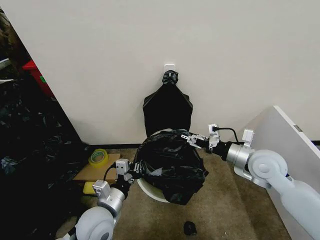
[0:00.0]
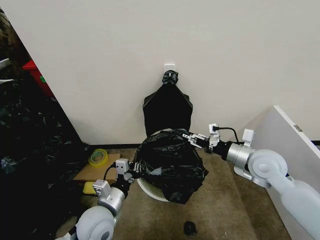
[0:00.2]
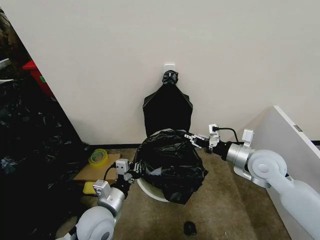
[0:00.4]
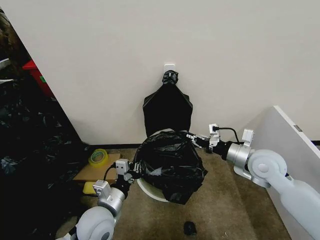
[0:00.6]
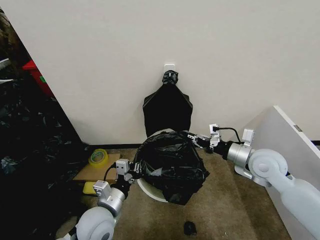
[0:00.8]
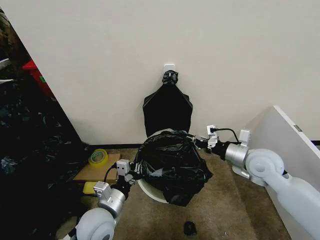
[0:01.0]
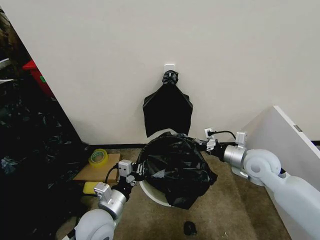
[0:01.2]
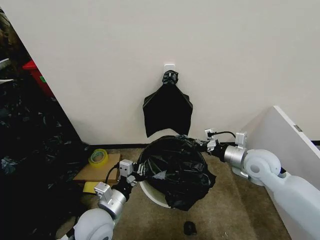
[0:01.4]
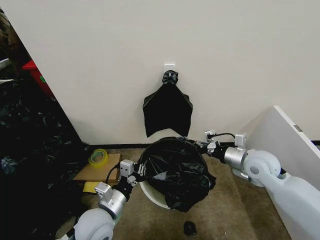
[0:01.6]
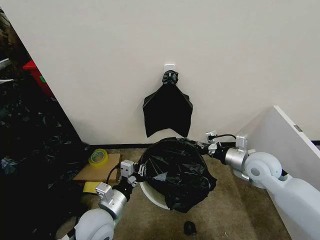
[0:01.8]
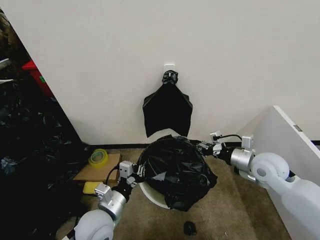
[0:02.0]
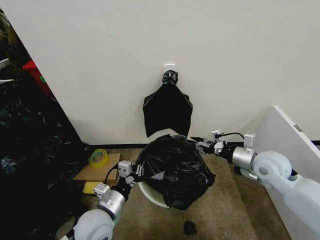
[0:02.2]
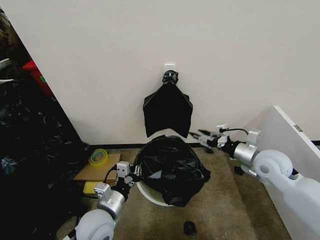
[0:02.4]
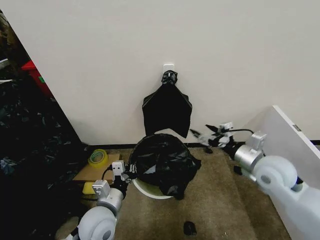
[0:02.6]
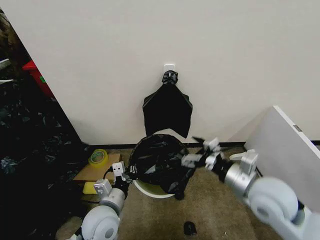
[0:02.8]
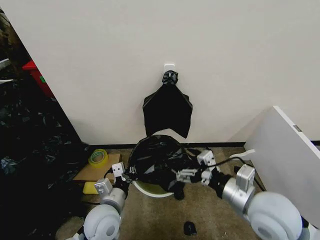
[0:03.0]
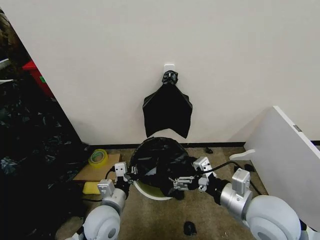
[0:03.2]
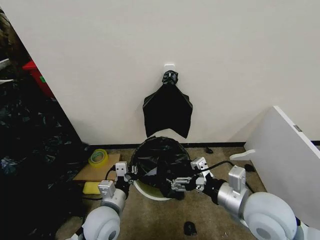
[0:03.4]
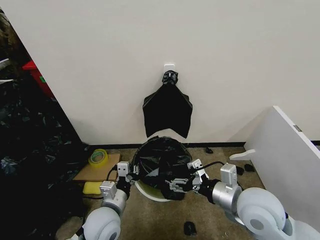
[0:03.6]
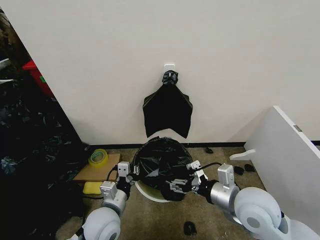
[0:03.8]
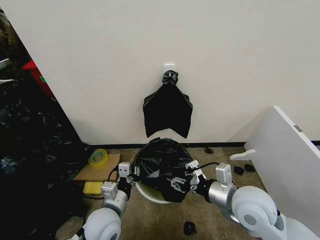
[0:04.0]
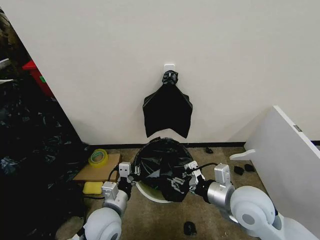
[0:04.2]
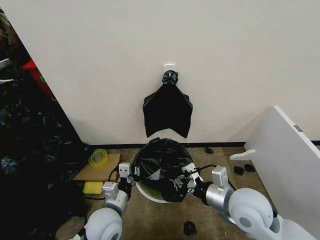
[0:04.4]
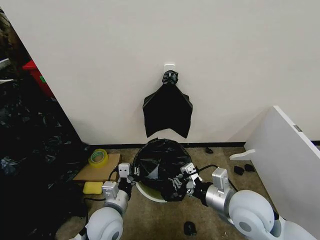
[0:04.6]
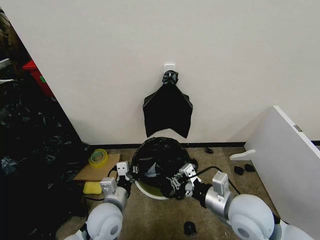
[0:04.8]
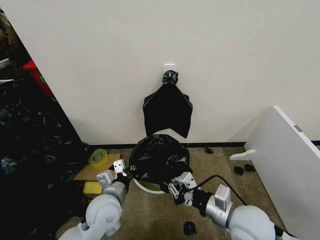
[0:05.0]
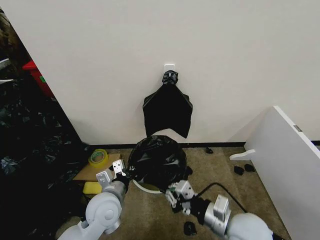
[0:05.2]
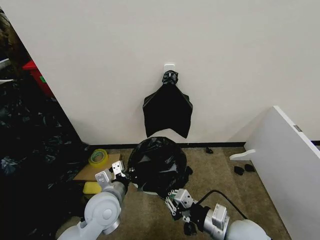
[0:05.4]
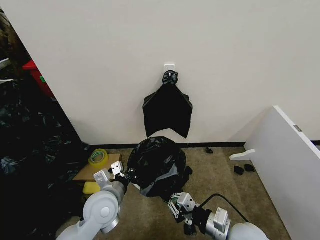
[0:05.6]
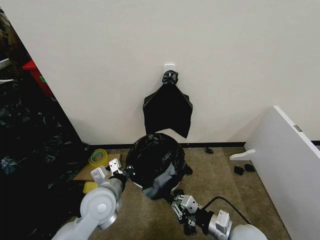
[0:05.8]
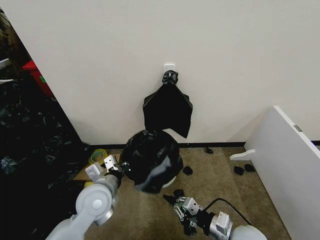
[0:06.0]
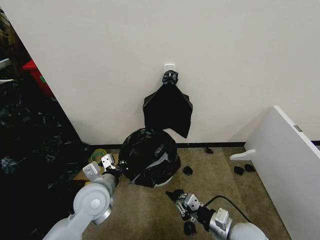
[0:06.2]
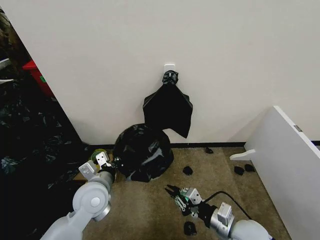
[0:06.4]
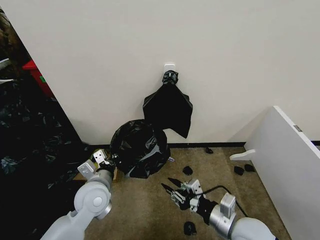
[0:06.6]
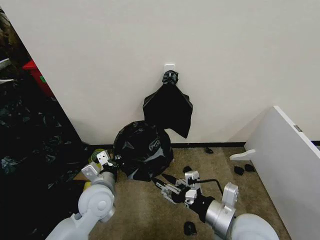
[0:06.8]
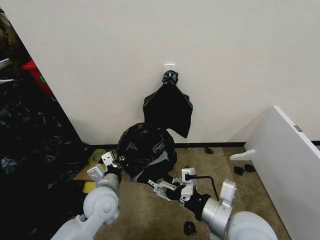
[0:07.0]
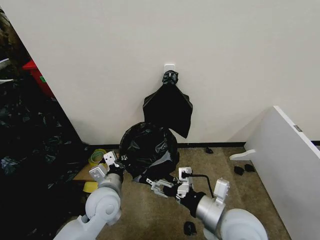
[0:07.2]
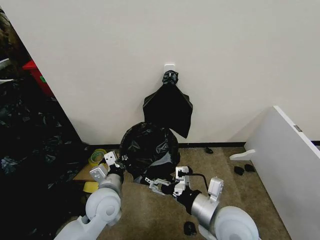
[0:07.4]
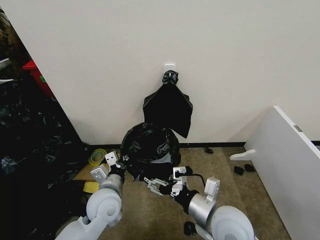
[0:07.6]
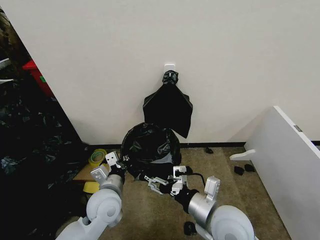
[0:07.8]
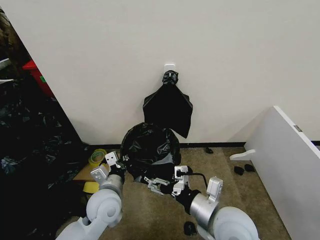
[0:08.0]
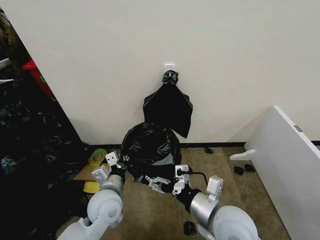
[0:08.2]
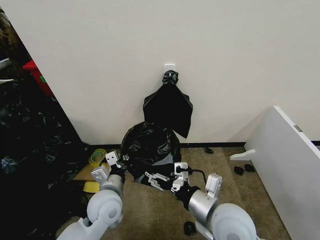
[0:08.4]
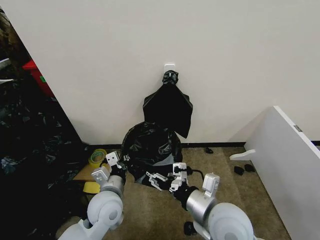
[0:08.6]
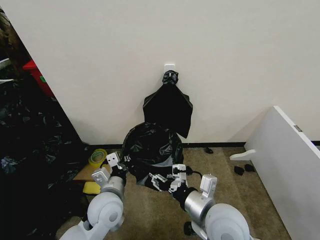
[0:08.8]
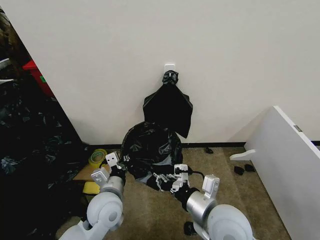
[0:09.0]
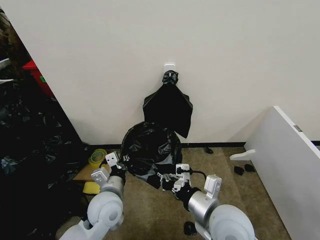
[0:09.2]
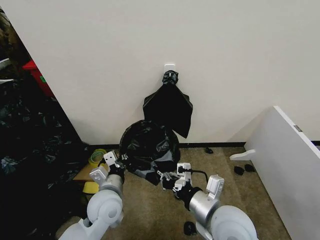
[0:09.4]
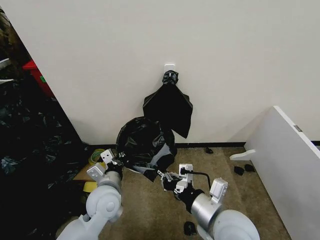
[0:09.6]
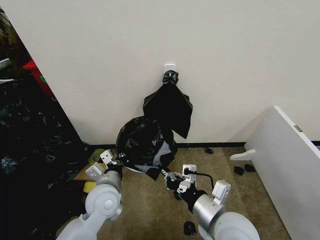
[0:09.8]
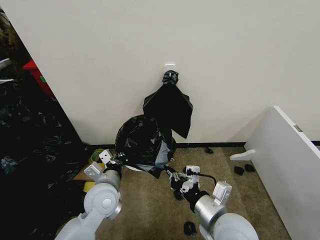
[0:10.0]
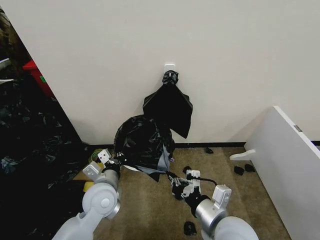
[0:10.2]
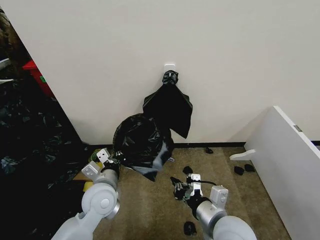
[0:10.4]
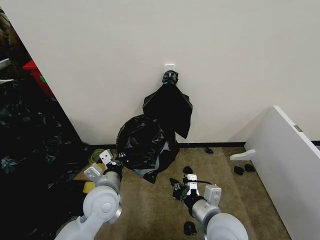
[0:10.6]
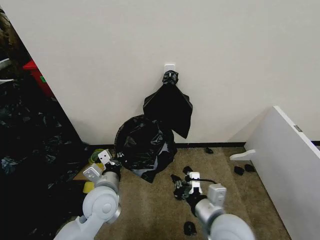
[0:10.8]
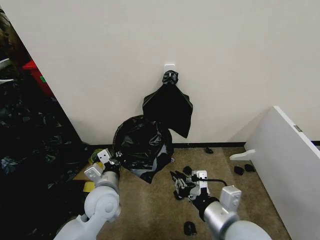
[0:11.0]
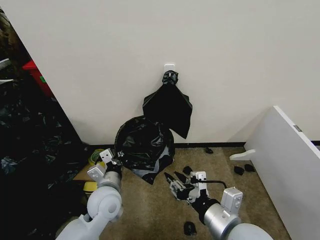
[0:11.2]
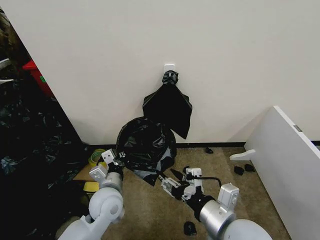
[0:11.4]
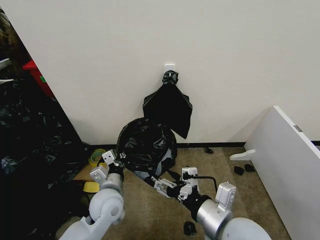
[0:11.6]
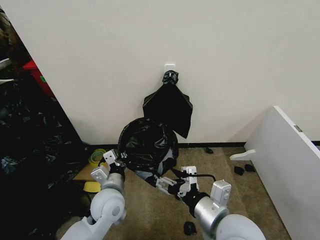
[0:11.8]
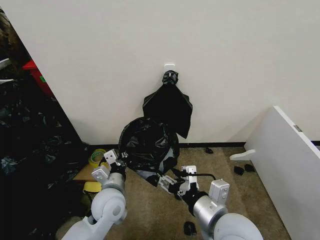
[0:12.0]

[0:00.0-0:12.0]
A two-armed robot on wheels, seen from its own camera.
Task of the whole recording: Place the garbage bag over the trash bin.
0:00.0 to 0:01.6: The right gripper closes its fingers.
0:01.6 to 0:03.0: The right gripper heads backward and to the left, covering some 15 cm, and opens.
0:03.0 to 0:04.4: The right gripper changes place by approximately 5 cm, and closes its fingers.
0:04.4 to 0:06.0: The right gripper heads downward and backward, covering about 15 cm. The left gripper heads upward, covering about 5 cm.
0:06.0 to 0:07.6: The right gripper travels upward and to the left by roughly 15 cm, and opens up.
0:07.6 to 0:09.0: The right gripper closes its fingers.
0:09.0 to 0:10.4: There are only small adjustments of the grippers.
0:10.4 to 0:12.0: The right gripper ends up roughly 5 cm from where it was, and opens.

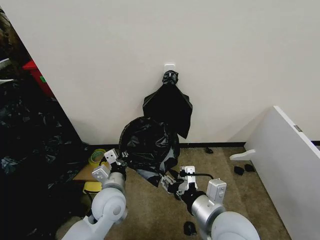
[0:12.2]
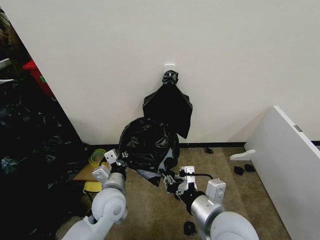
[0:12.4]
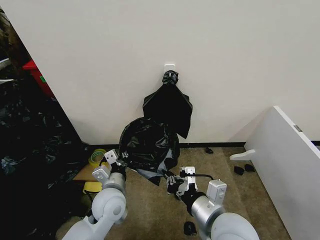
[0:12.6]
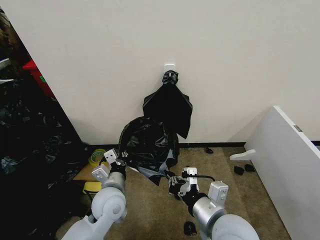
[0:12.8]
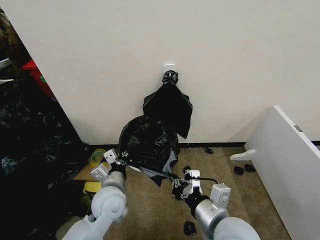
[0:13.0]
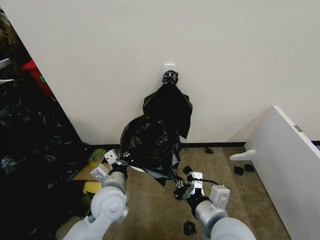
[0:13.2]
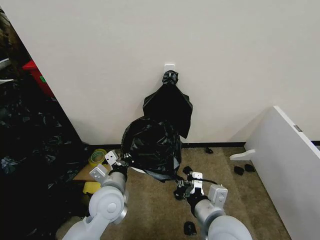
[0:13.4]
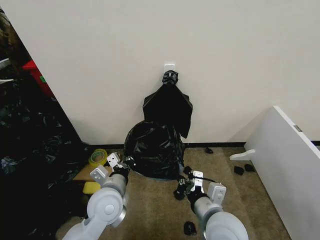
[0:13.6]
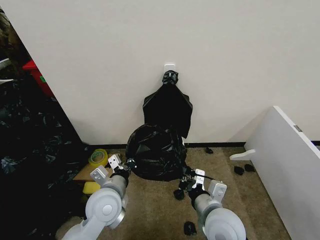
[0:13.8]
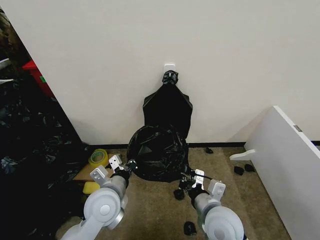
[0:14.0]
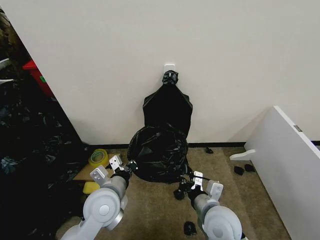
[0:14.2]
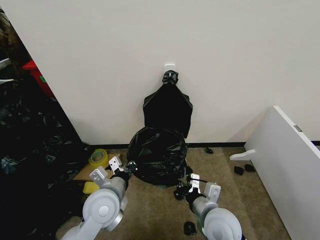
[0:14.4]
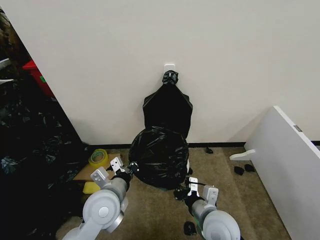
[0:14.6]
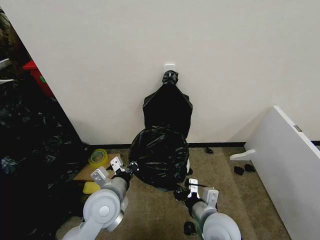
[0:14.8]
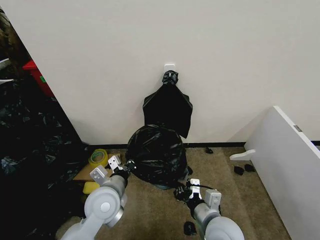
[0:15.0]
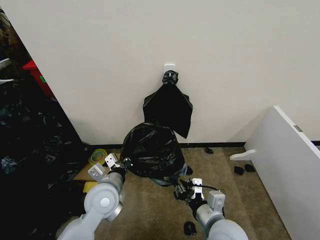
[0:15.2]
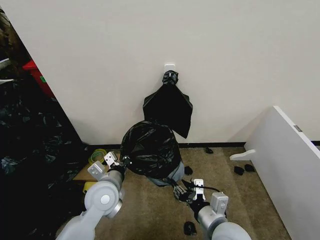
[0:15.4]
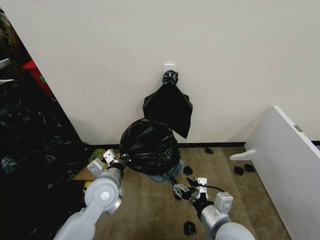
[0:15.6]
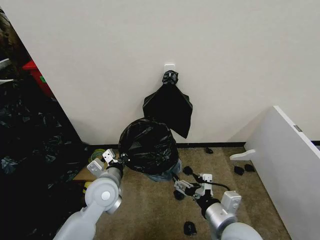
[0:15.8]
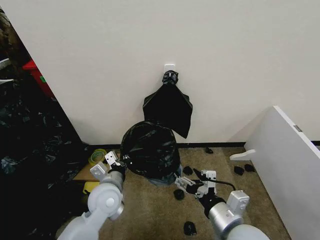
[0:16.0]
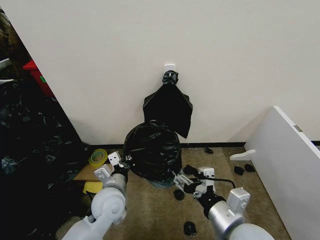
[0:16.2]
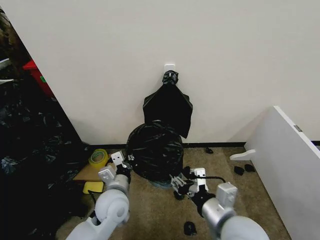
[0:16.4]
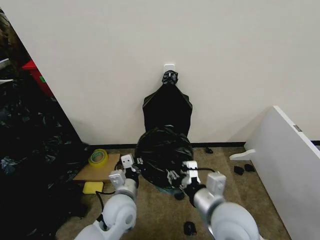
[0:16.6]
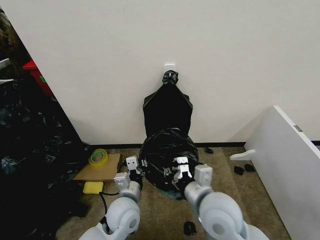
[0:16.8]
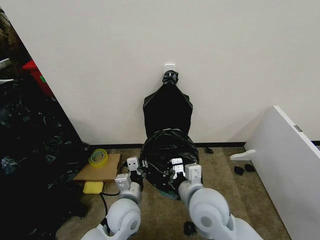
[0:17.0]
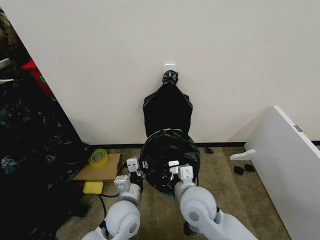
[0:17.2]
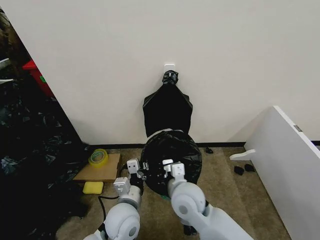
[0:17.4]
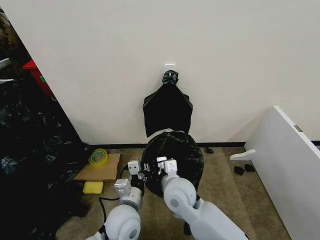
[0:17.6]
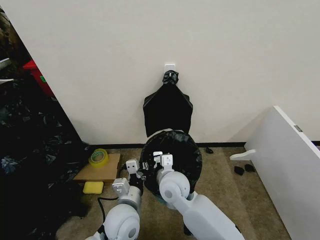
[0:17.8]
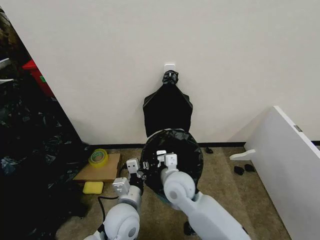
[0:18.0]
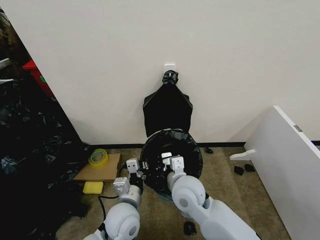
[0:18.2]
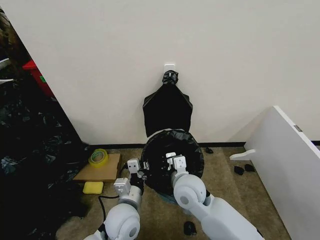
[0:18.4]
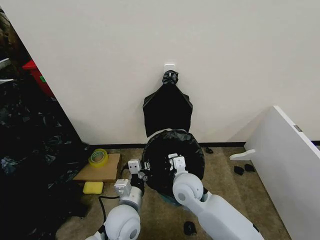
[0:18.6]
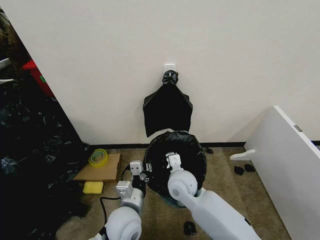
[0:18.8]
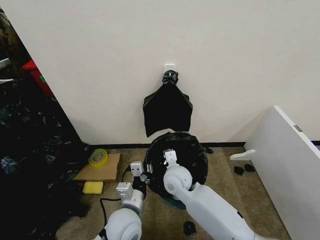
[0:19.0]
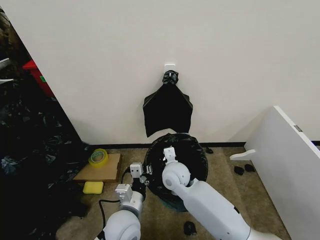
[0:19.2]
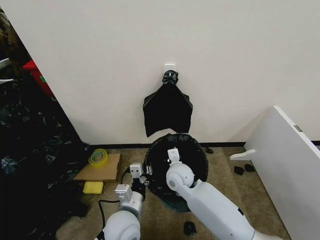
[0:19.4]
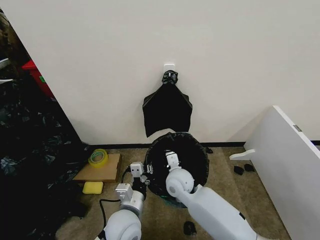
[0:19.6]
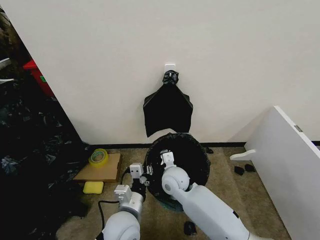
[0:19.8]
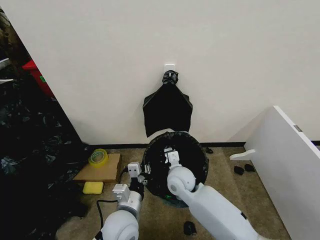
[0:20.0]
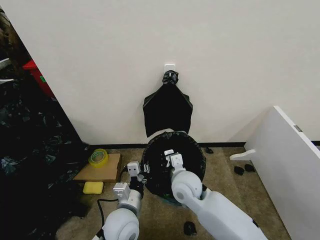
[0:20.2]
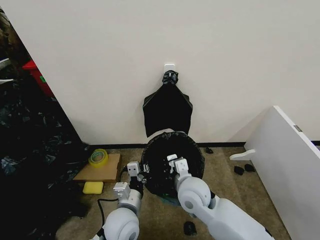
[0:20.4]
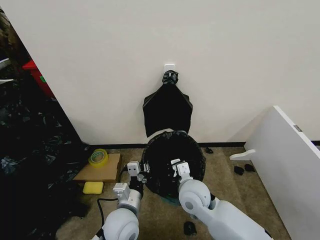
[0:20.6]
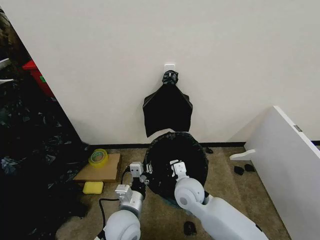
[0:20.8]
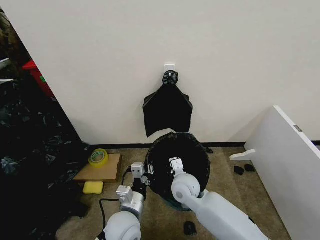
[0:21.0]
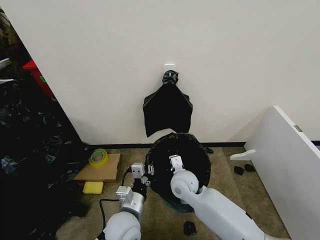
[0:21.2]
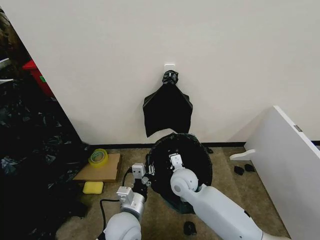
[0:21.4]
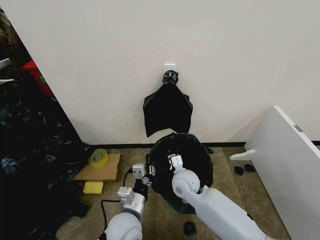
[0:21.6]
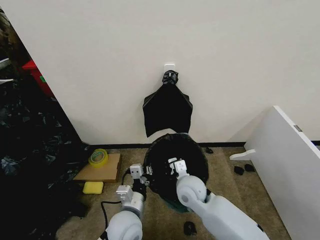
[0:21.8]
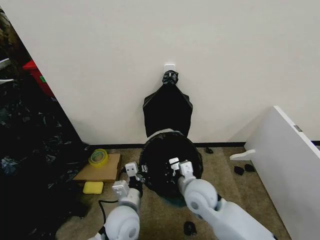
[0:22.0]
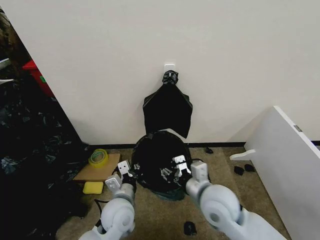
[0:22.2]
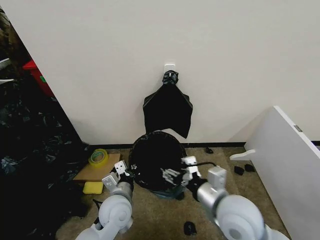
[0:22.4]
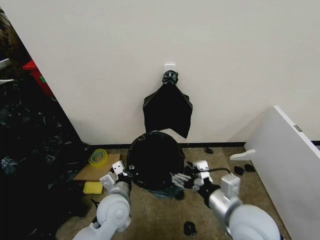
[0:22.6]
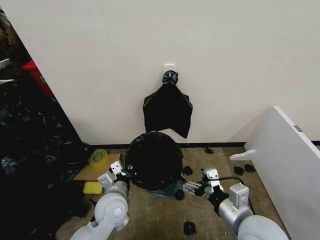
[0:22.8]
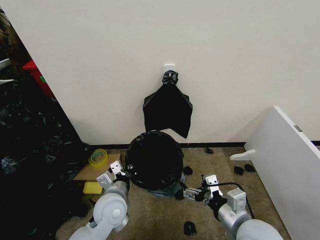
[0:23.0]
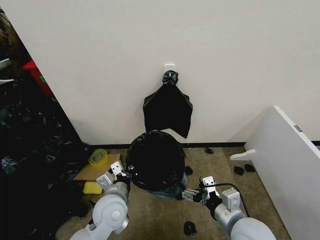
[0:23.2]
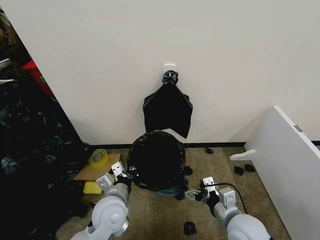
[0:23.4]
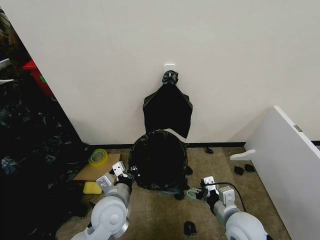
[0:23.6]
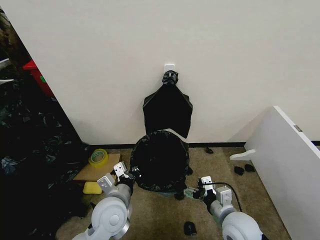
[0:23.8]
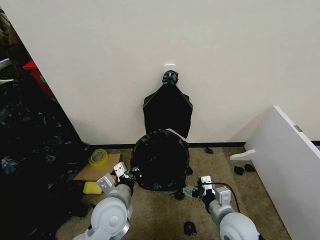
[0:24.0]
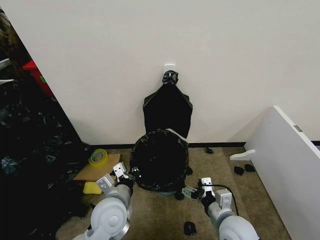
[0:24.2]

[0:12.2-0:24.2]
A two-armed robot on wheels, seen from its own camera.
Task of the whole recording: Place the garbage bag over the trash bin.
0:12.2 to 0:13.8: The right gripper goes some 5 cm downward, and closes up.
0:13.8 to 0:15.2: There are only small adjustments of the grippers.
0:15.2 to 0:16.6: The left gripper changes place by roughly 5 cm. The right gripper heads upward, covering about 10 cm, and opens, then closes once more.
0:16.6 to 0:18.2: The right gripper goes approximately 15 cm forward and to the left.
0:18.2 to 0:19.8: The right gripper heads forward and downward, covering some 10 cm.
0:21.2 to 0:22.6: The right gripper moves backward, upward and to the right, some 20 cm, and opens its fingers. Meanwhile the left gripper shifts approximately 5 cm forward.
0:22.6 to 0:24.2: The right gripper travels downward by roughly 10 cm.
